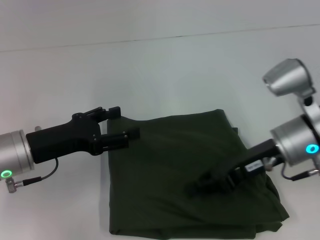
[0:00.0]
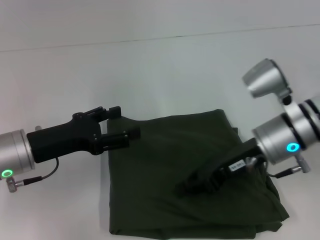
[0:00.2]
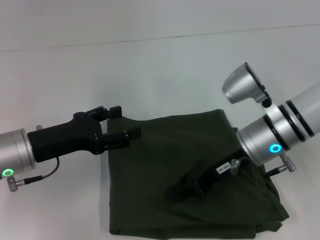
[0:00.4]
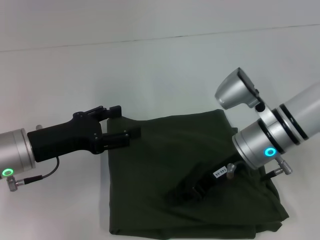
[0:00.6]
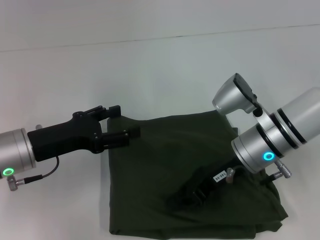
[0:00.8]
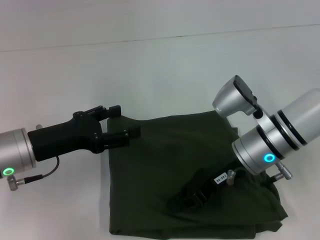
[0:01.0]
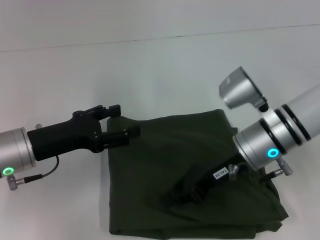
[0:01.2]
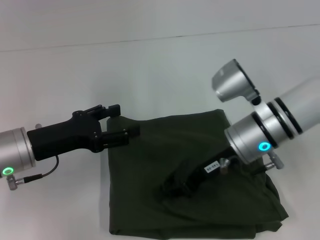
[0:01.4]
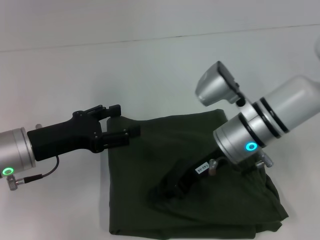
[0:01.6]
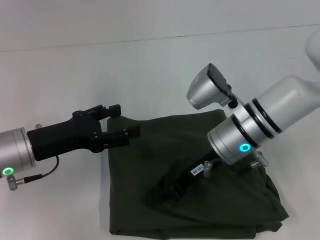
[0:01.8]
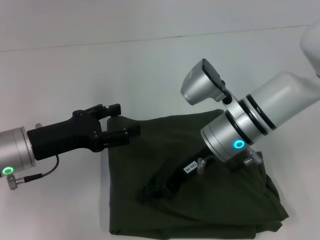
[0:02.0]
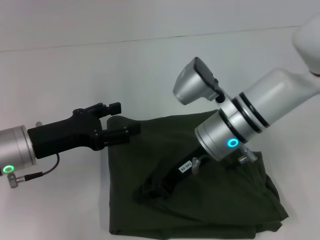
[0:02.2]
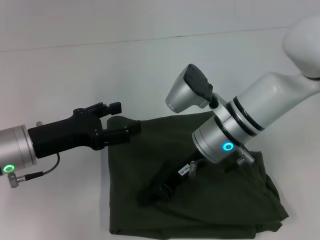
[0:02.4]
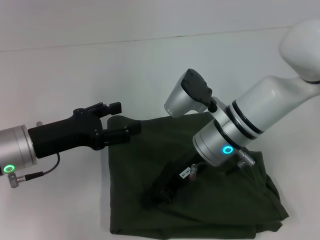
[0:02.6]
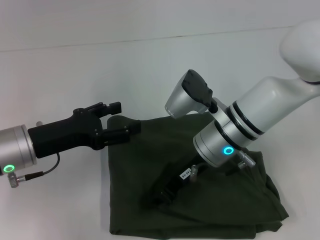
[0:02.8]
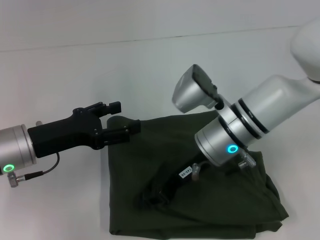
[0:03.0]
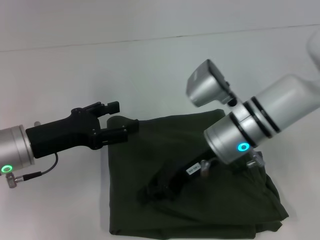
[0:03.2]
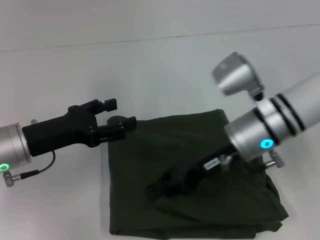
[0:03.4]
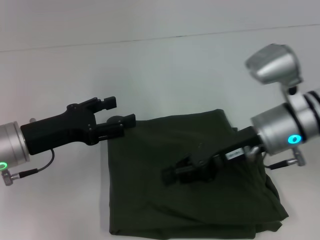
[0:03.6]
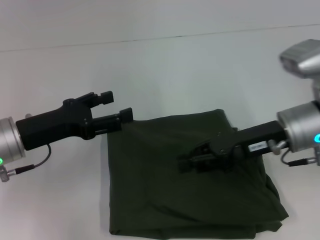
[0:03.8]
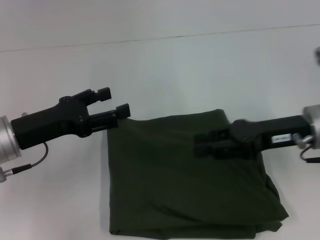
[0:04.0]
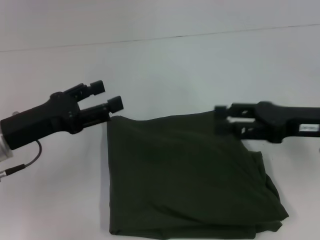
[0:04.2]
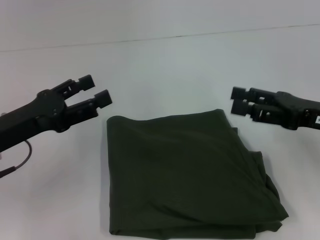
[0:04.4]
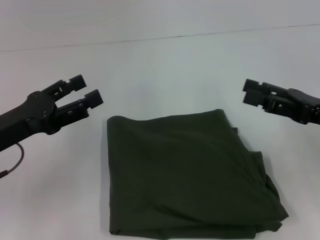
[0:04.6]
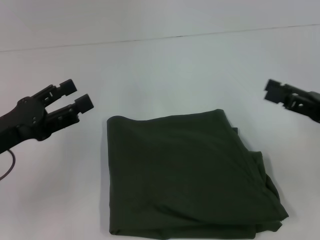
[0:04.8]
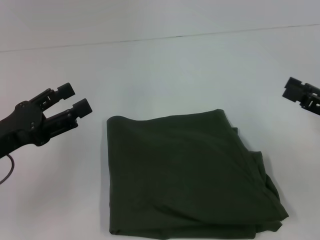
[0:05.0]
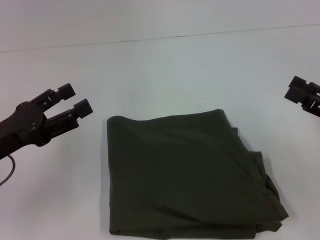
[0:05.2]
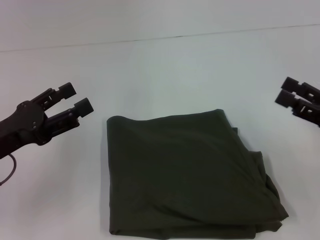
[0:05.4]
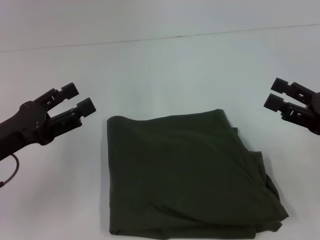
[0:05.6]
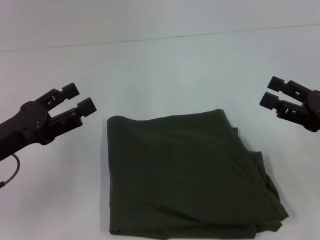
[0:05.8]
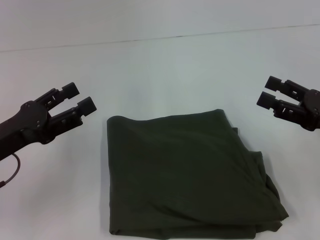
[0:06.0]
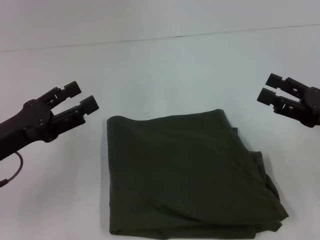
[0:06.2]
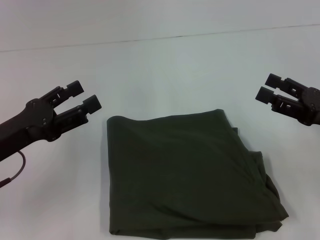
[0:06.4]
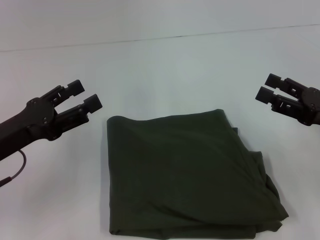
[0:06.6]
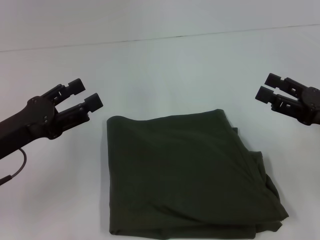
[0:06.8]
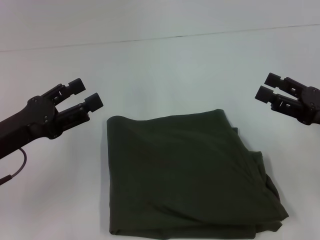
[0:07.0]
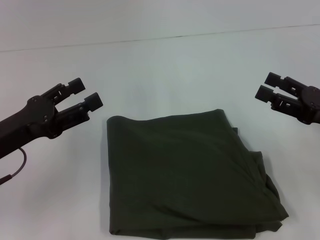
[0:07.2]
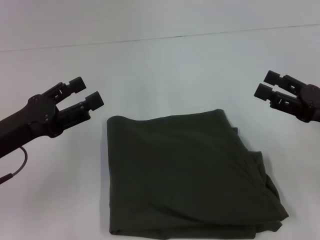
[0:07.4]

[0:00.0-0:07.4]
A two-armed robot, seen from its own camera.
0:00.0 to 0:01.4: The right gripper is displaced to the left by some 5 cm.
0:01.4 to 0:03.0: The grippers make only small movements.
0:03.0 to 0:04.4: The right gripper travels to the right by some 20 cm, and opens up.
0:06.0 to 0:07.4: Both grippers stay put.

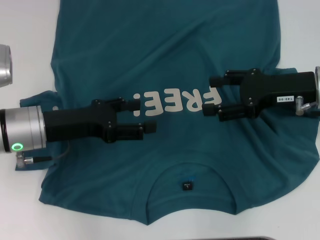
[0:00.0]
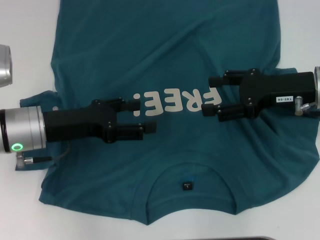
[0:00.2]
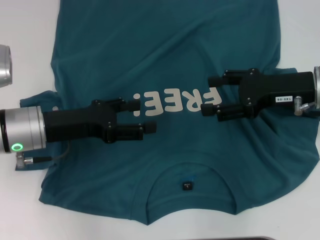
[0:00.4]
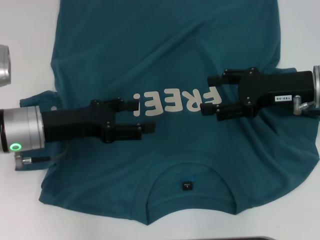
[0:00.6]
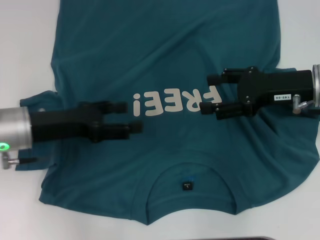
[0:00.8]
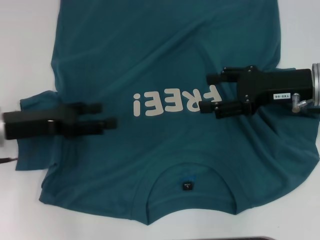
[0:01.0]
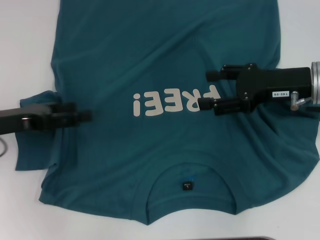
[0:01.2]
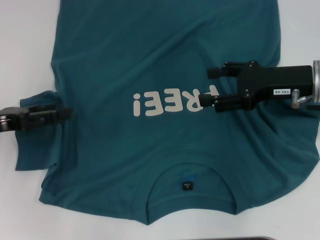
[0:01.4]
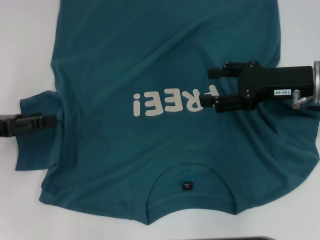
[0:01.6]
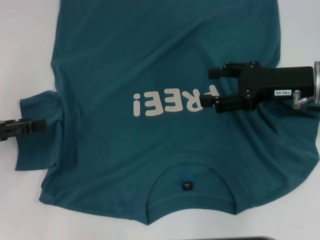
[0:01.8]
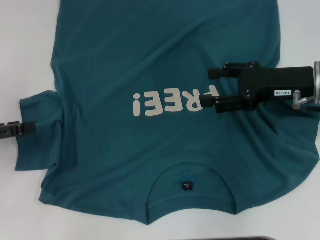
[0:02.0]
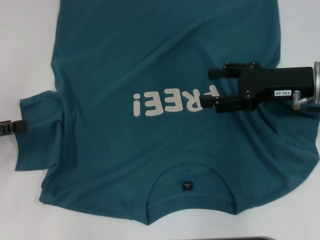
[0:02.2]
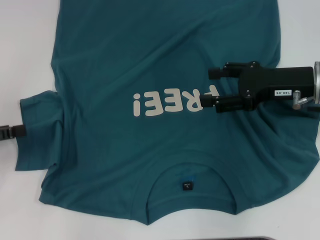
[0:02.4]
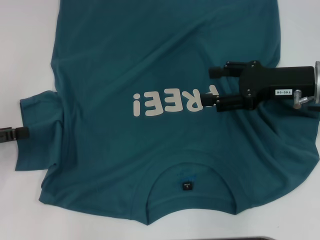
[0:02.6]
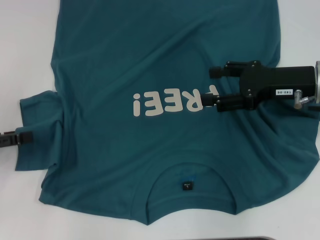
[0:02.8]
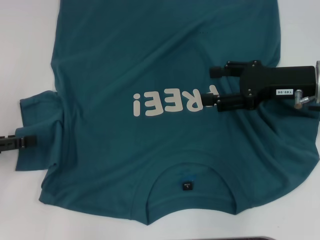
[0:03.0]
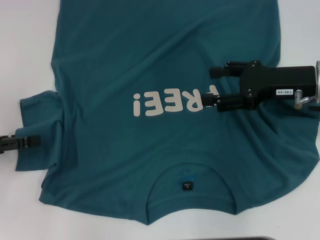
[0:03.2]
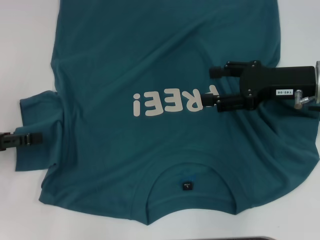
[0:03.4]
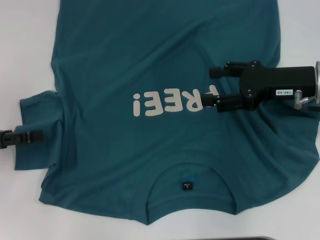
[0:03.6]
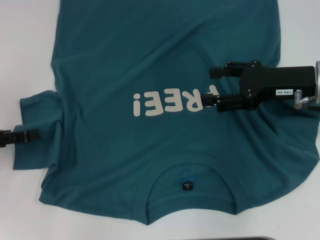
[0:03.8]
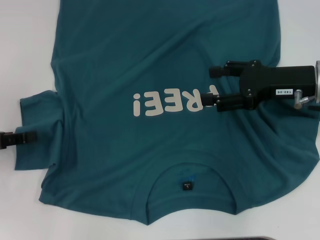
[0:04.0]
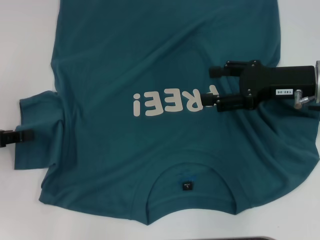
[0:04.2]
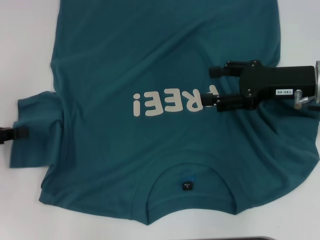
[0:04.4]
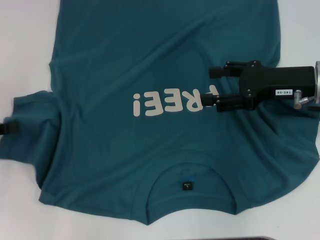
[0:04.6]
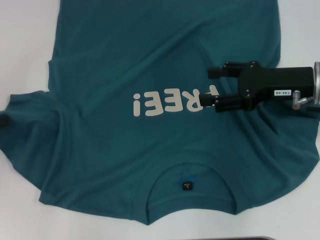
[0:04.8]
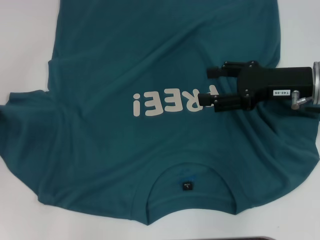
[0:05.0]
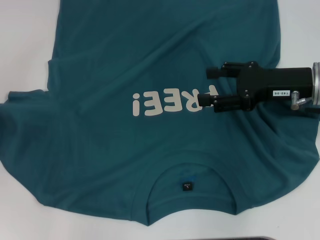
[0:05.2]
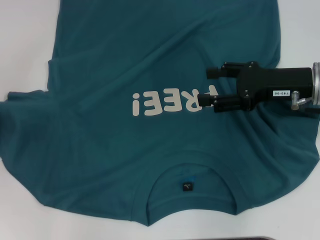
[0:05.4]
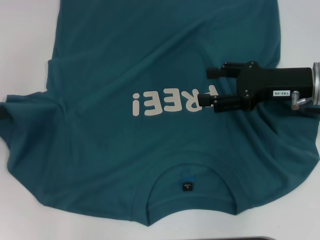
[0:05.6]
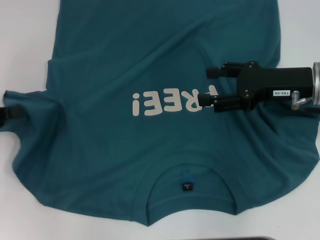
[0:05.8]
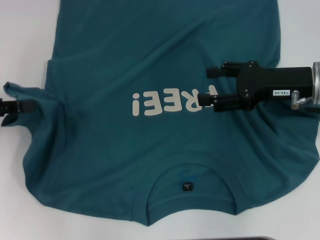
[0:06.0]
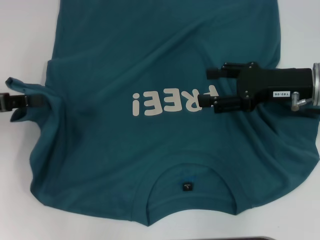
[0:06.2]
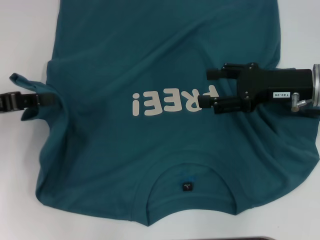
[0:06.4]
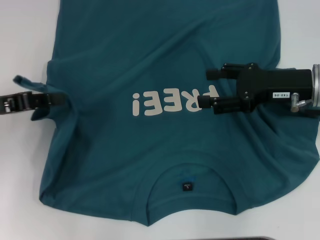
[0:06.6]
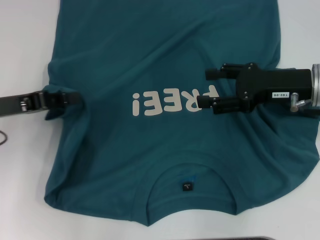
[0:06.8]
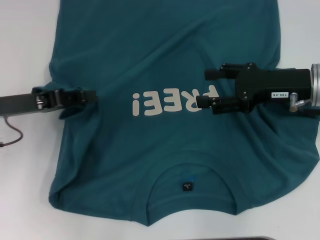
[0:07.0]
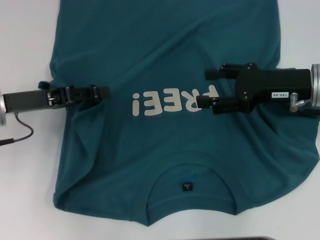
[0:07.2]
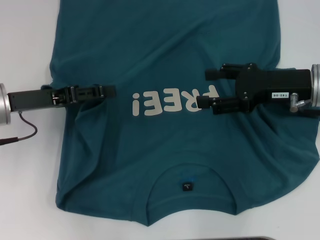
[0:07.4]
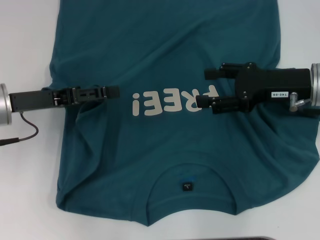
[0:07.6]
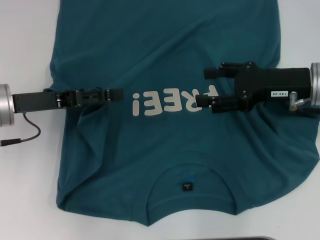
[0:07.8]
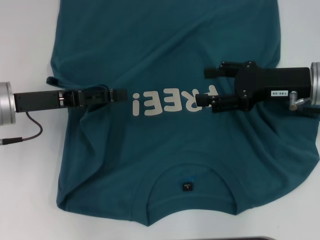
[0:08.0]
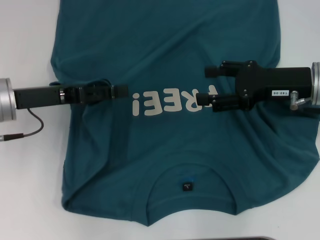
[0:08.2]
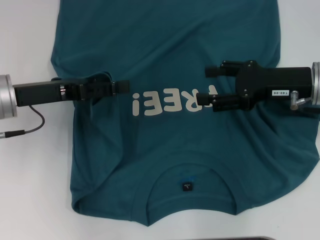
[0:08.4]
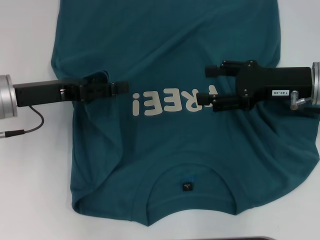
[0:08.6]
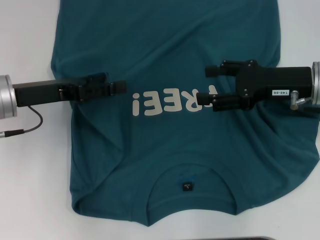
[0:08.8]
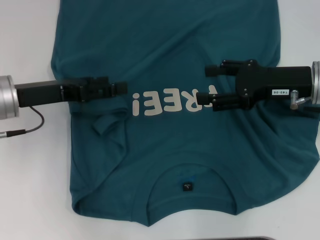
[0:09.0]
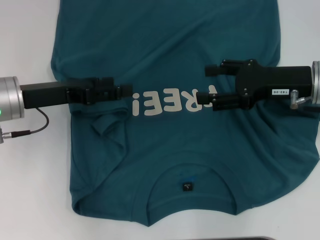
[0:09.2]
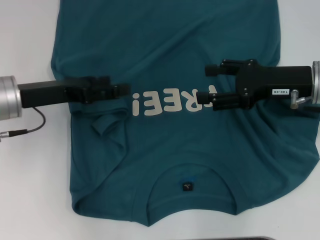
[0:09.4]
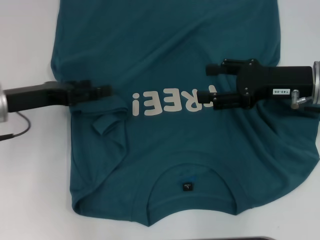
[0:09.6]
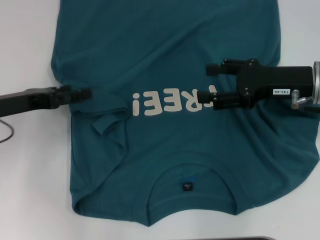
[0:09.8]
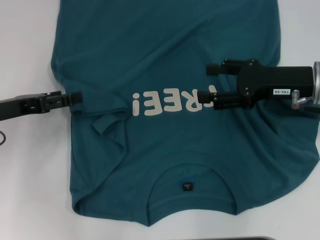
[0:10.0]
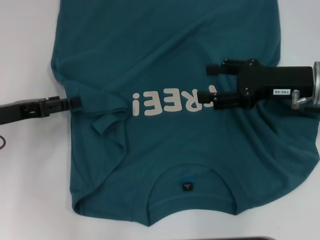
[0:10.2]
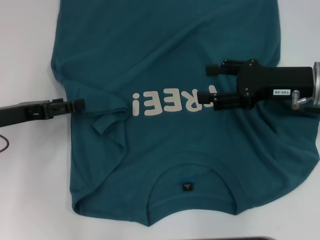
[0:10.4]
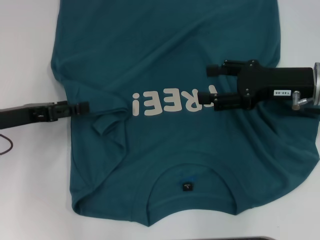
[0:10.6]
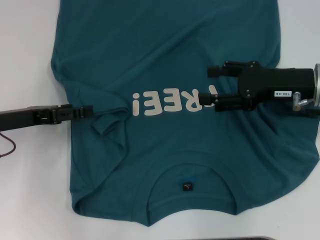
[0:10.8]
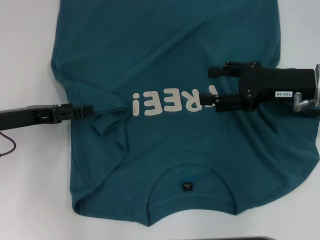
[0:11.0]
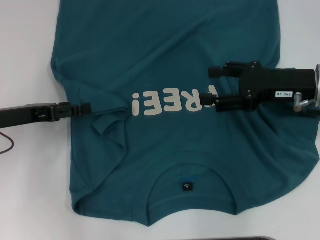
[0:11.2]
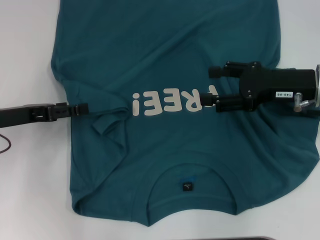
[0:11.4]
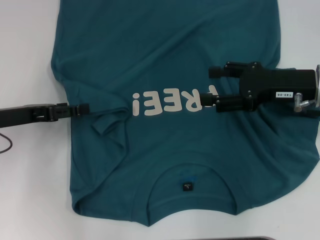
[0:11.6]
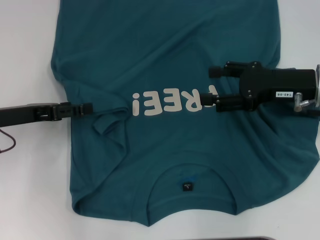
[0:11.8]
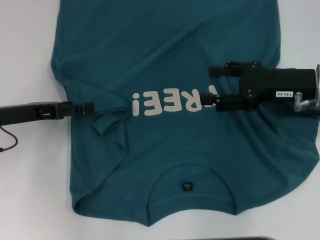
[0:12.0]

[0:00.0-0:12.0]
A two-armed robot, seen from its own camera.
0:00.0 to 0:01.6: The left gripper heads to the left, covering some 15 cm.
0:01.6 to 0:03.0: The grippers move only a little.
0:03.0 to 0:04.4: The left gripper closes.
0:04.4 to 0:06.0: The grippers move only a little.
0:06.0 to 0:07.6: The left gripper is displaced to the right by some 10 cm, and opens up.
0:07.6 to 0:09.0: The left gripper opens up.
0:09.0 to 0:10.4: The left gripper moves to the left, roughly 5 cm.
0:10.4 to 0:12.0: There are only small adjustments of the grippers.

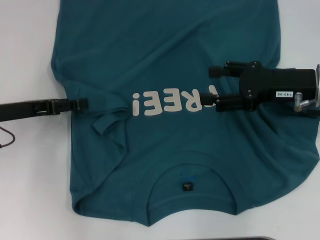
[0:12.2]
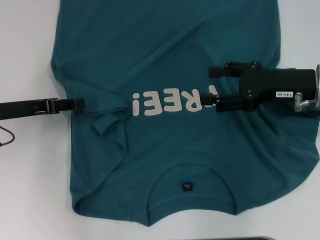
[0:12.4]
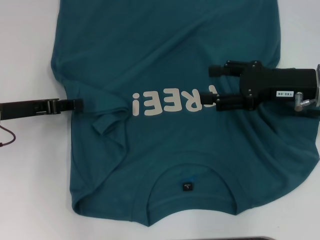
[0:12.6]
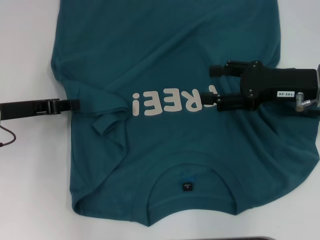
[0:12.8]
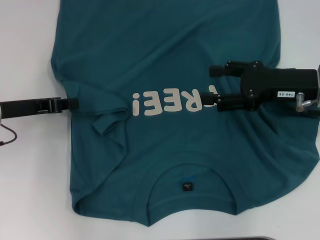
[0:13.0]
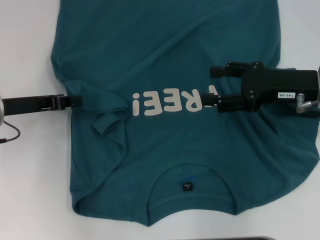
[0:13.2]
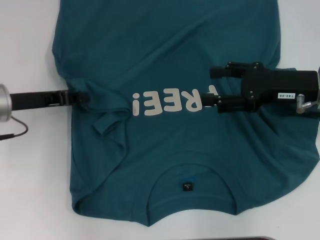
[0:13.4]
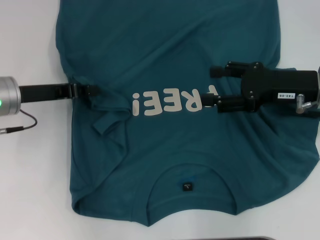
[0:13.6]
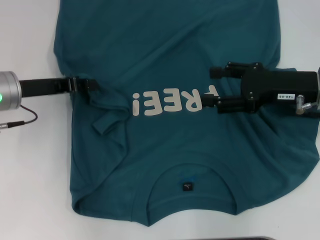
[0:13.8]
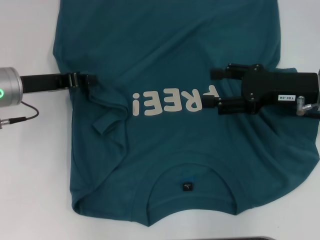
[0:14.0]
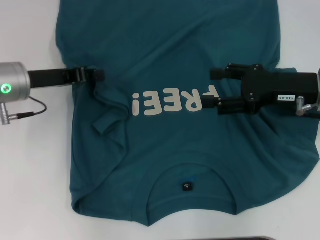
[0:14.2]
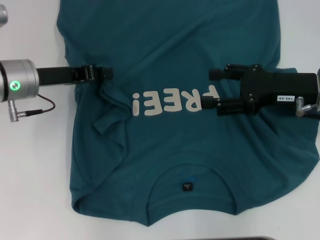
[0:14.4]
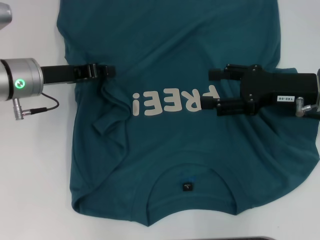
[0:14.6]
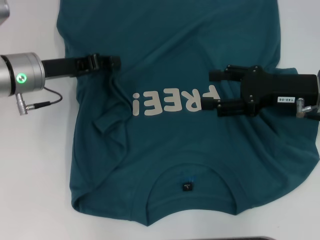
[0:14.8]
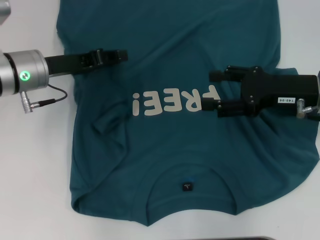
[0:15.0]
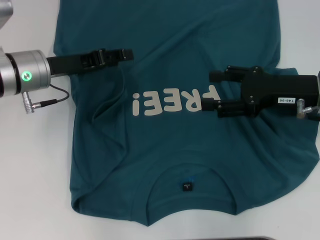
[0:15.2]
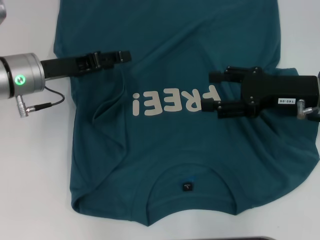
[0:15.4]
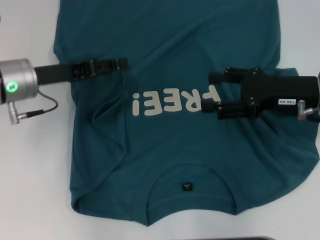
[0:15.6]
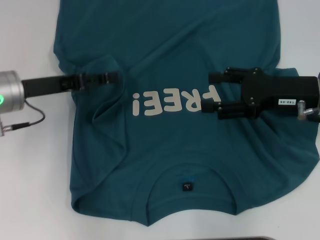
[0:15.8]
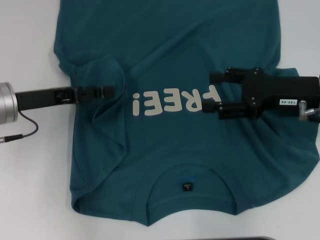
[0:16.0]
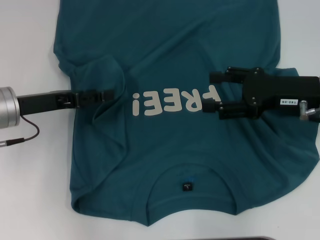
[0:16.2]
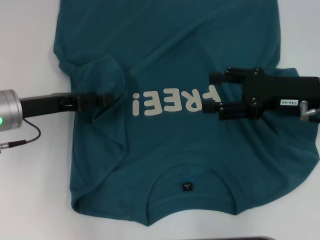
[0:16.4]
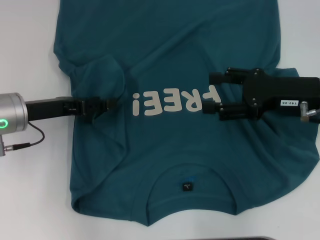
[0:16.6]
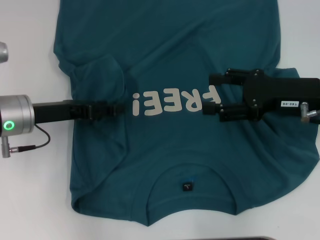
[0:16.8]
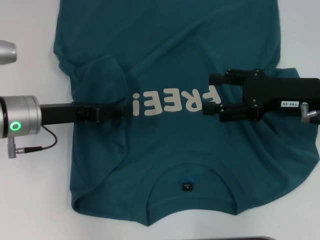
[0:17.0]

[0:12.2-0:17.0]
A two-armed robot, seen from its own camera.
0:12.2 to 0:13.8: The left gripper closes its fingers.
0:13.8 to 0:15.4: The left gripper opens its fingers.
0:15.4 to 0:17.0: The left gripper moves roughly 5 cm.
